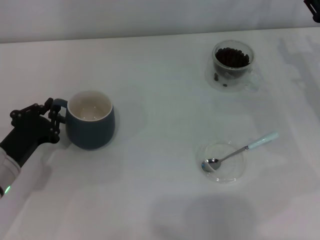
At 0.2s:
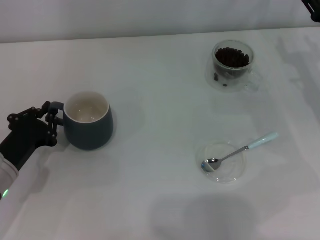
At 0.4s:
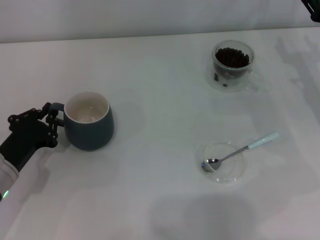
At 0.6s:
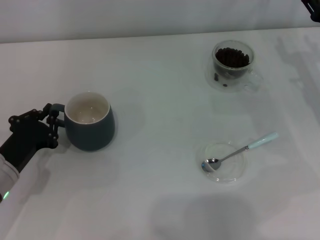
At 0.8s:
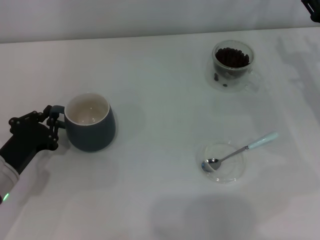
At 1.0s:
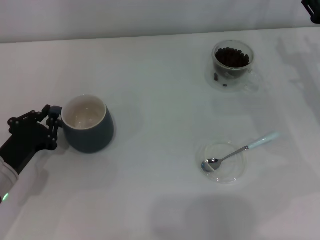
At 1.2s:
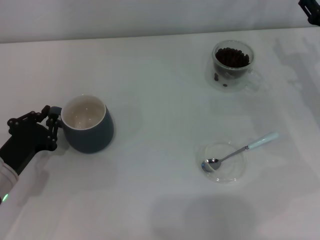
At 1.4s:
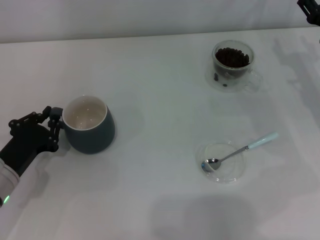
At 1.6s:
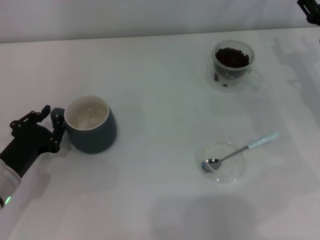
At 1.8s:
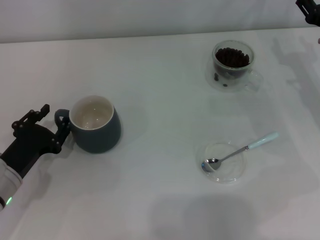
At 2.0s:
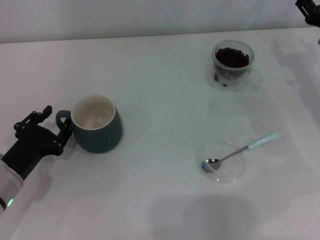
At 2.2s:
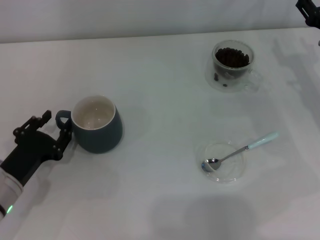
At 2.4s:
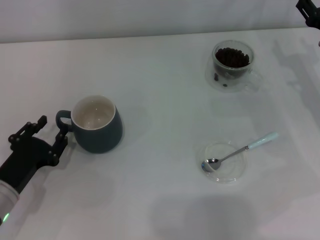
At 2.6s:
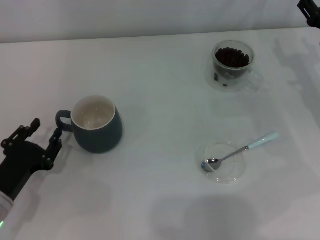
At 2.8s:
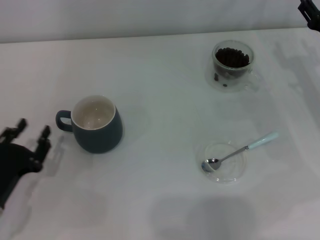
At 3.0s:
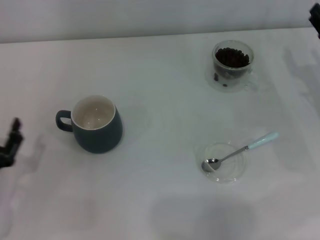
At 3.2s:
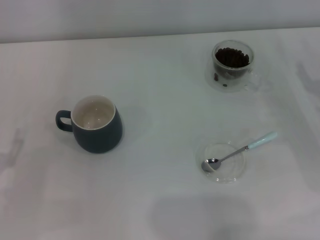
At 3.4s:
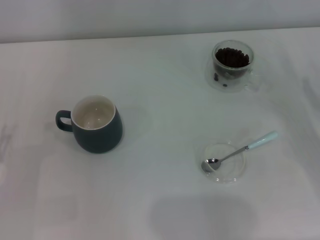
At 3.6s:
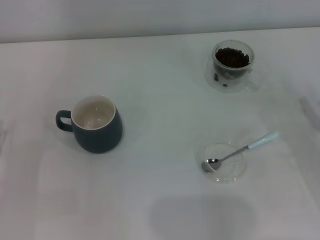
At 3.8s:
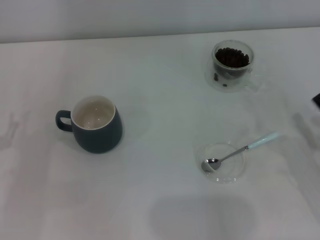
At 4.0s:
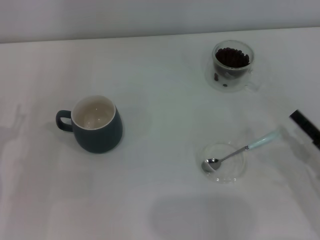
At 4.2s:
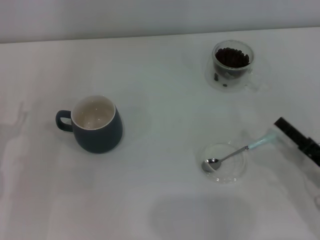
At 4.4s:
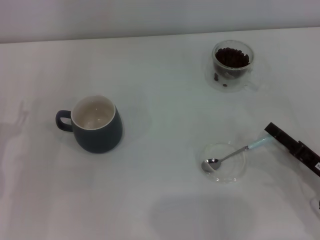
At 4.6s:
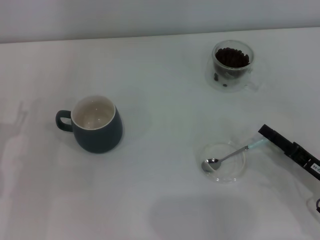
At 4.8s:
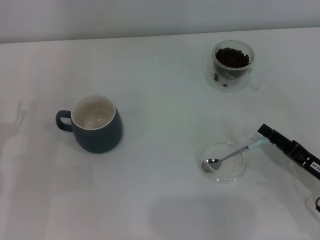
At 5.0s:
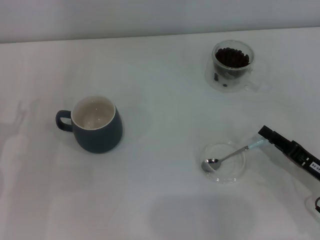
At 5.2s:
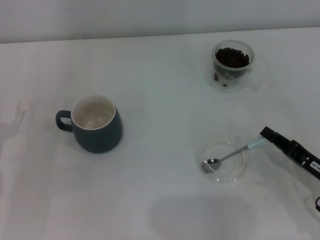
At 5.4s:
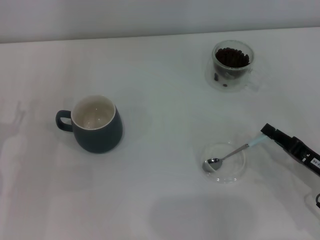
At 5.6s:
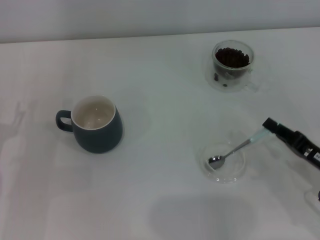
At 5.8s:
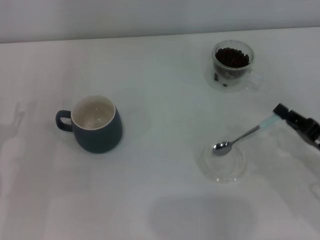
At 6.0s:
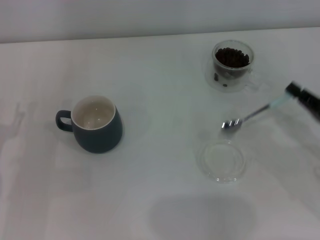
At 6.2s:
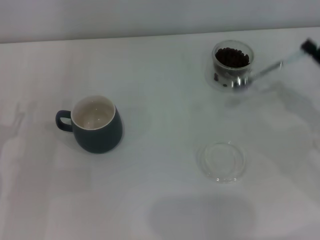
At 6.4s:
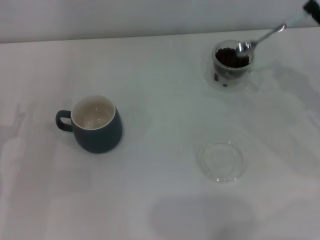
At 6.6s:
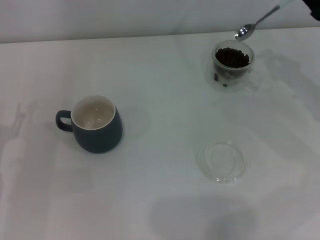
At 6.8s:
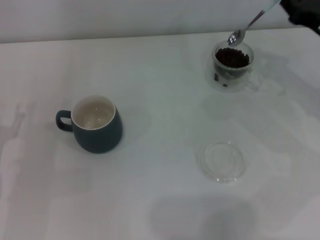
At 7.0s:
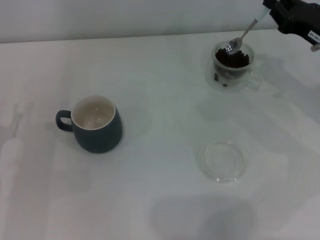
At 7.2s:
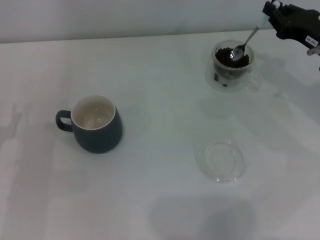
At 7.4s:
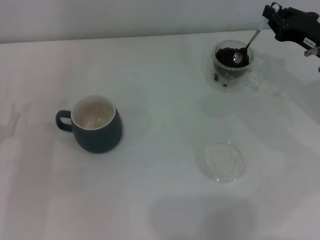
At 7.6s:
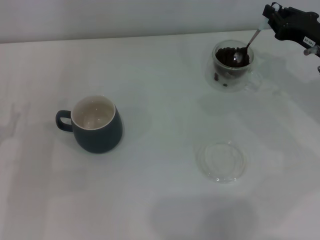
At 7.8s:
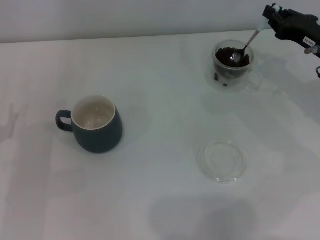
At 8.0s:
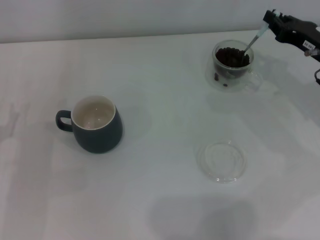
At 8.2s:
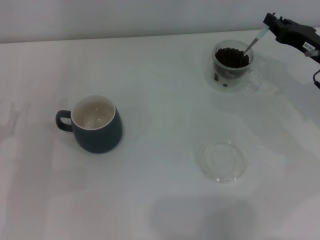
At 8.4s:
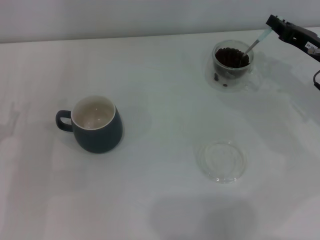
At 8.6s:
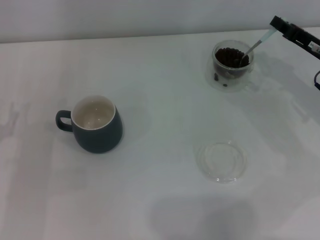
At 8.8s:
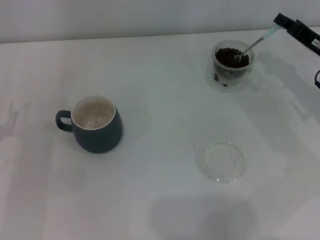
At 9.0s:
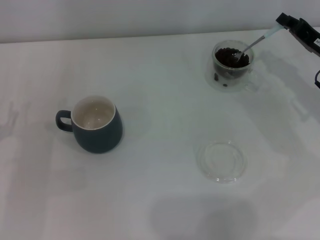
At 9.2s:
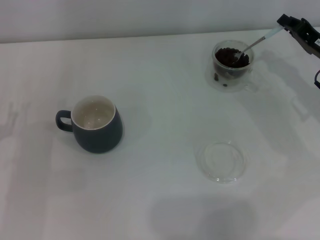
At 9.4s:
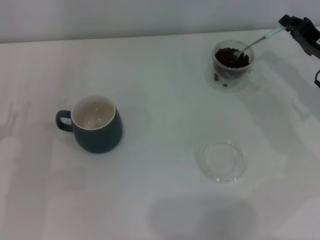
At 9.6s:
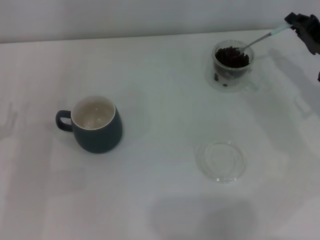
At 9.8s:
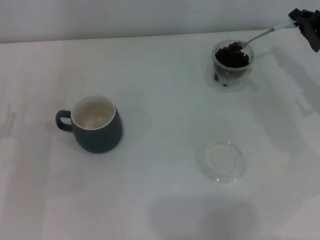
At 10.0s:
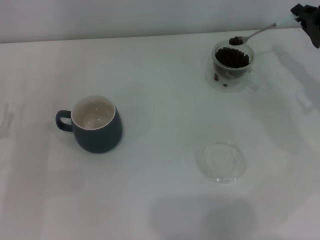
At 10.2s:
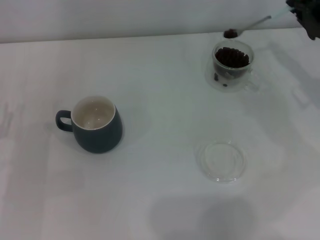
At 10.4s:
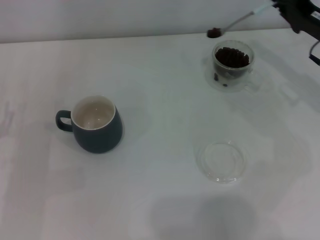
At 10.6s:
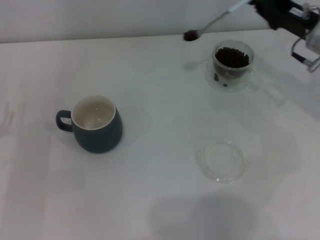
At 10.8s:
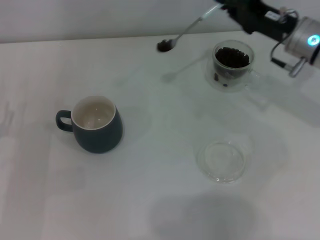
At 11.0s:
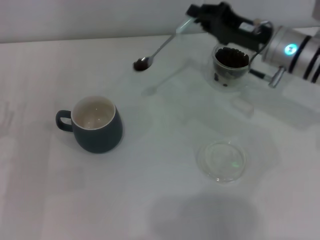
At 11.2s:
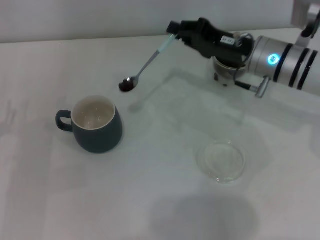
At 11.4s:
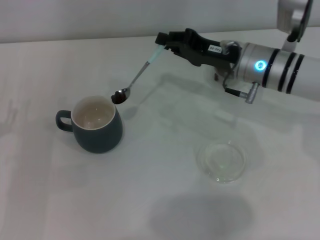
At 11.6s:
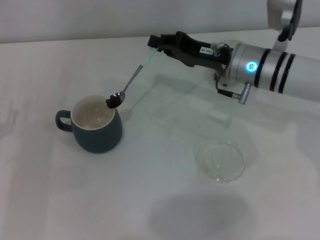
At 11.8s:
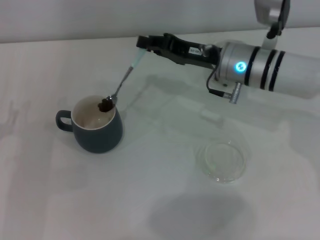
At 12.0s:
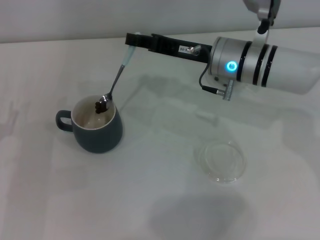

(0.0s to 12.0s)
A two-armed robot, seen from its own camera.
Task of the whole recording: Use a blue spoon to take out the coffee beans from the glass and pour them into the gray cup.
Step, 0.0s - 2.8s: Move the cup to the center of view with the left gripper.
Step, 3.0s - 5.8s: Pick up the spoon with the right gripper.
0.0s - 1.6s: There are only small adjustments of the grippers.
1.6s - 3.0s: The left gripper moves backward, approximately 5 cm, and opens its fingers.
3.0s - 4.4s: The right gripper is displaced backward and downward by about 15 cm. Meanwhile the left gripper travels forward by about 5 cm, and opens up.
4.4s - 6.0s: The right gripper changes place by approximately 5 cm, and closes.
6.0s - 7.6s: The right gripper travels forward and upward by approximately 15 cm.
9.0s - 10.4s: The grippers move only a little.
10.4s - 12.0s: The right gripper travels to the left by about 15 cm.

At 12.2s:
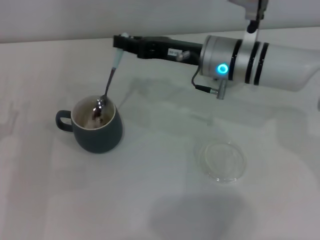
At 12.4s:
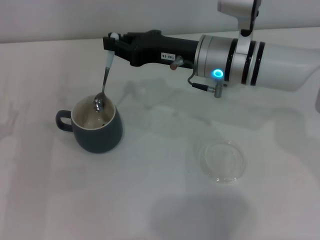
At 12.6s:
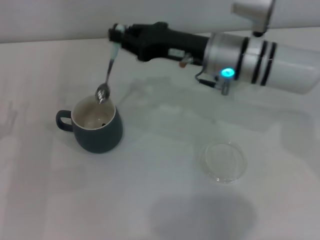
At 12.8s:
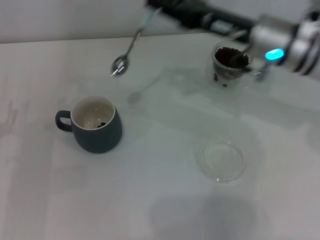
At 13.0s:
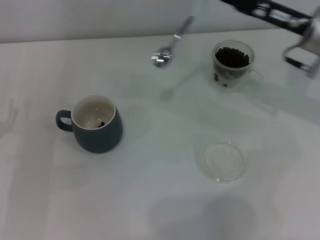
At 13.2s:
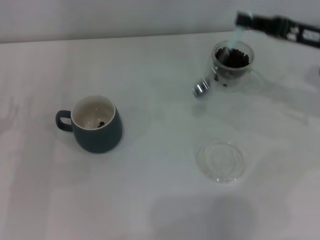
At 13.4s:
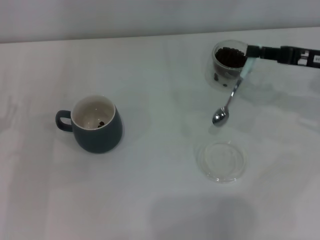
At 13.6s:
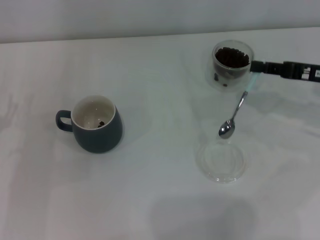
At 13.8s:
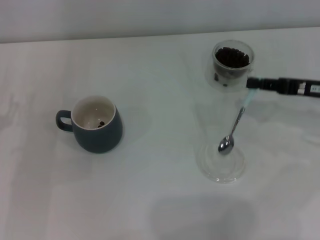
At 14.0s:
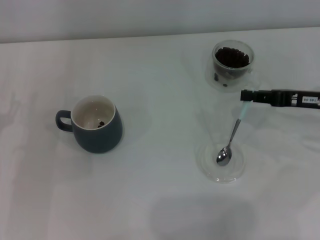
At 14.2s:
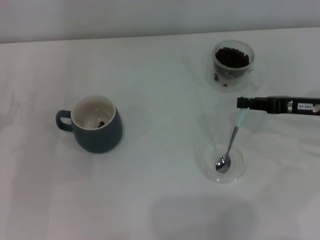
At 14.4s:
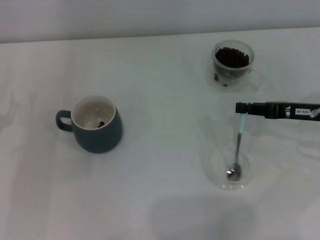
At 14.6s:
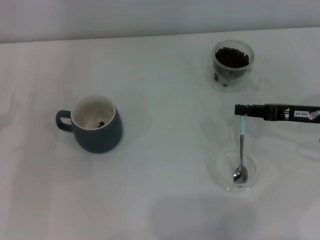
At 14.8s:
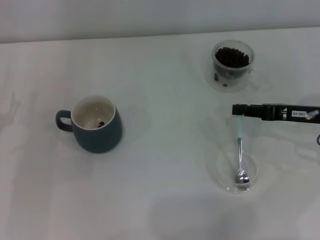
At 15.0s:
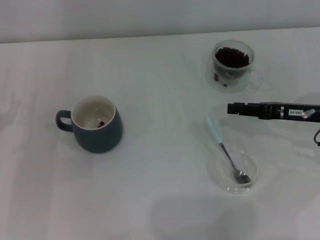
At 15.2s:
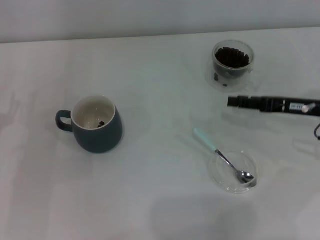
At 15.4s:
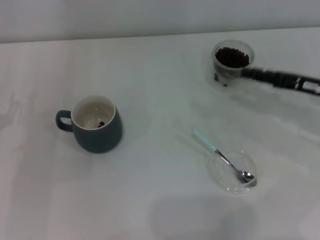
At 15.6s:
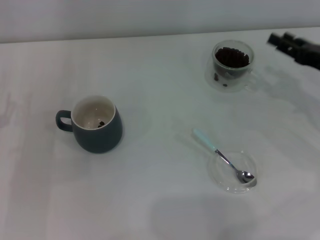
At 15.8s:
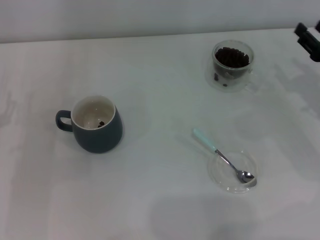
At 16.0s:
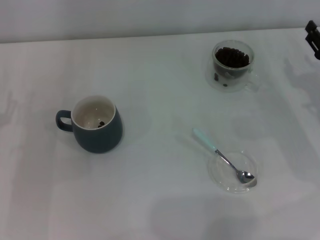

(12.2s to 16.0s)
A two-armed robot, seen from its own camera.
Task of the whole recording: Use a blue spoon to take out the coffee beans from the glass and pour them into the gray cup.
Step, 12.8s - 15.0s: Place the spoon back in its original place with the right gripper.
12.2s - 13.4s: The right gripper goes approximately 20 cm to the right.
13.4s - 14.8s: The right gripper heads downward, covering approximately 5 cm.
14.8s - 16.0s: The right gripper opens.
